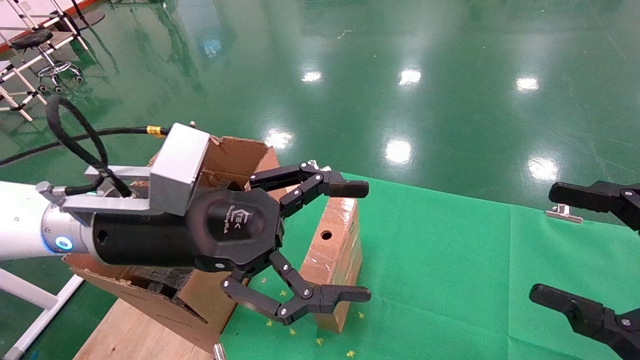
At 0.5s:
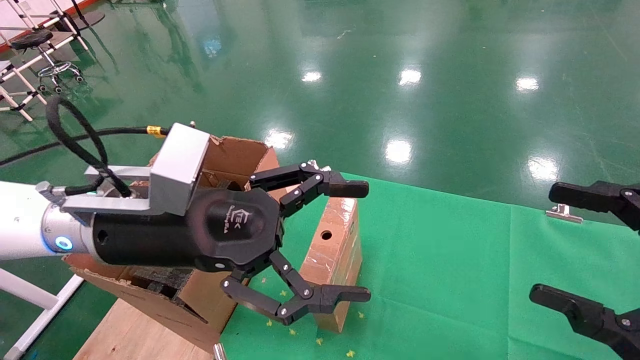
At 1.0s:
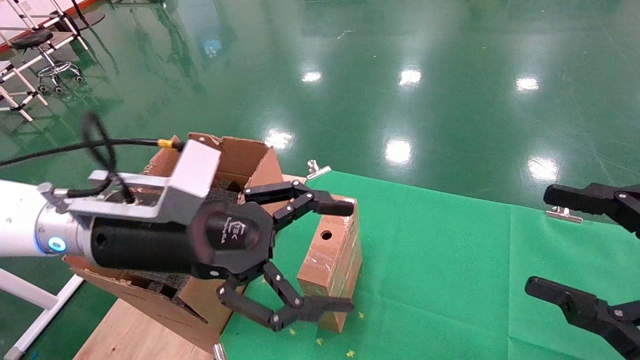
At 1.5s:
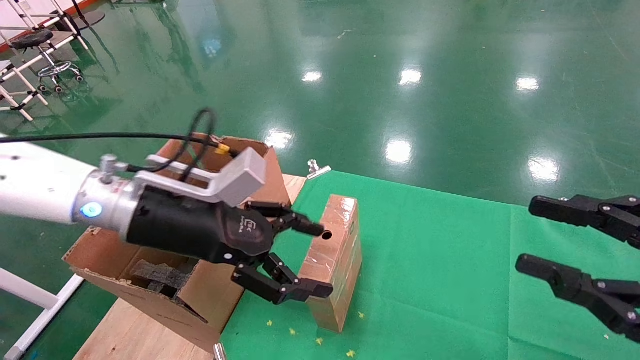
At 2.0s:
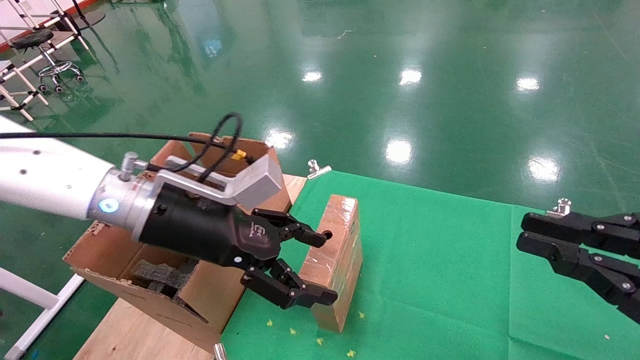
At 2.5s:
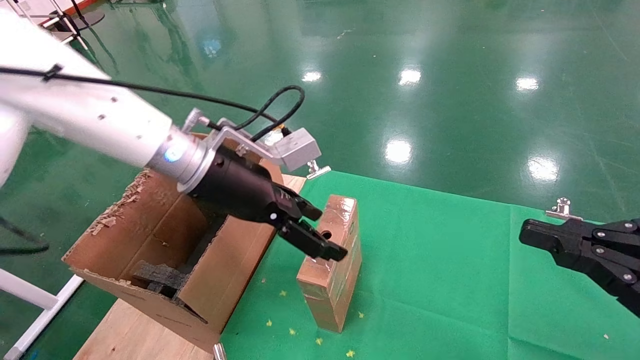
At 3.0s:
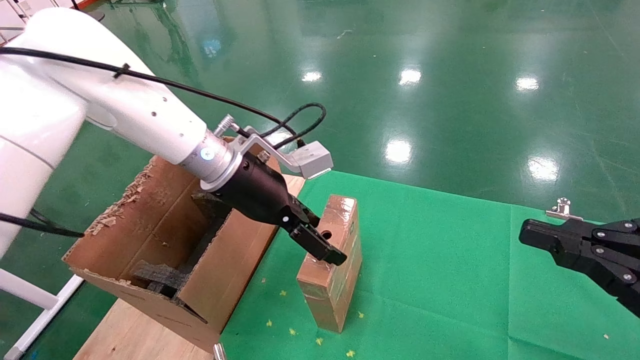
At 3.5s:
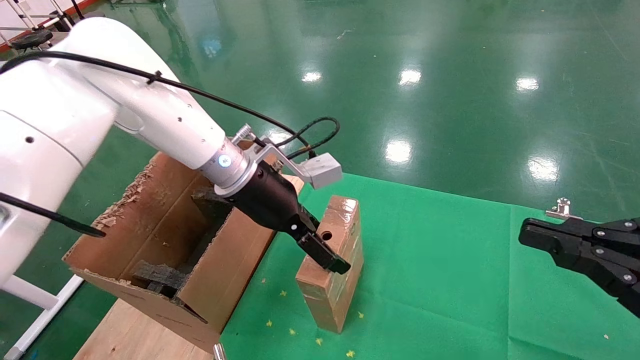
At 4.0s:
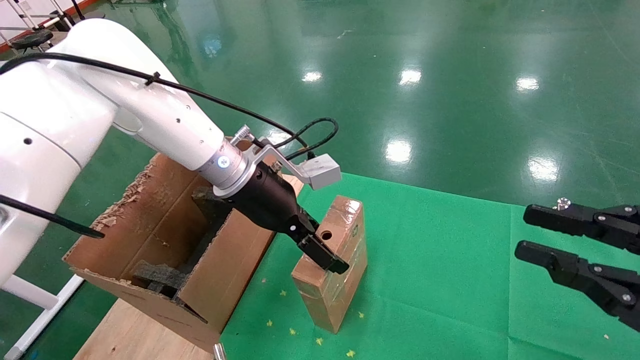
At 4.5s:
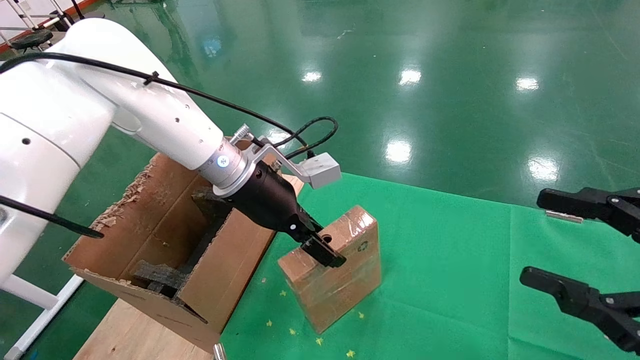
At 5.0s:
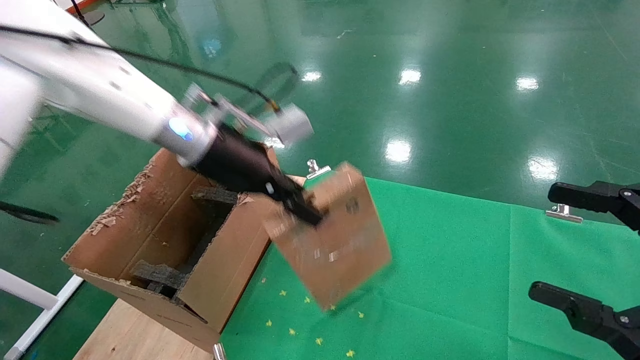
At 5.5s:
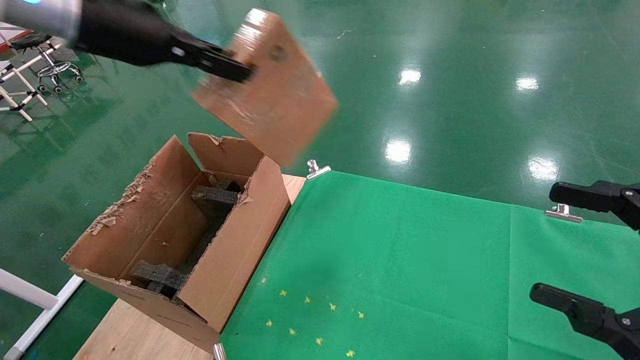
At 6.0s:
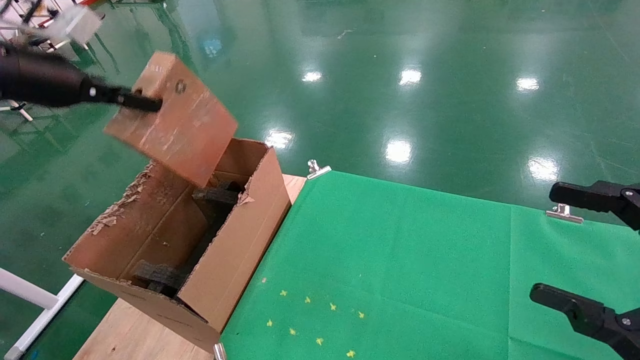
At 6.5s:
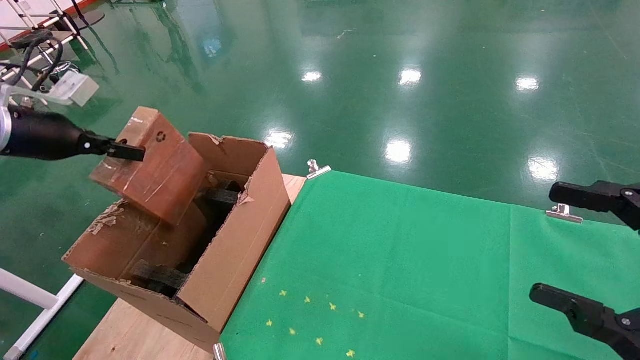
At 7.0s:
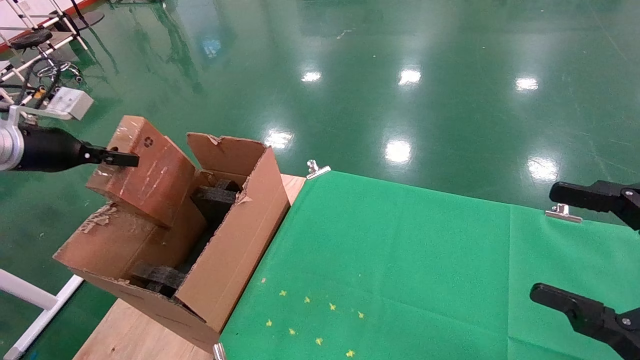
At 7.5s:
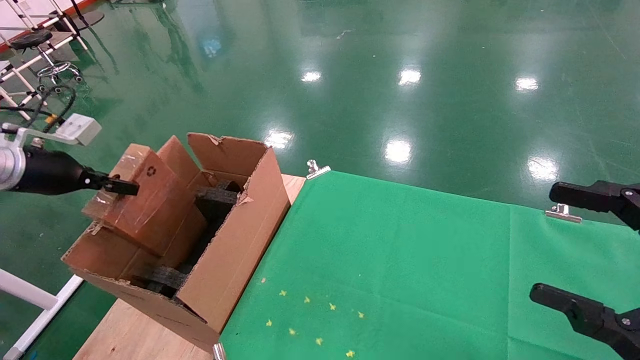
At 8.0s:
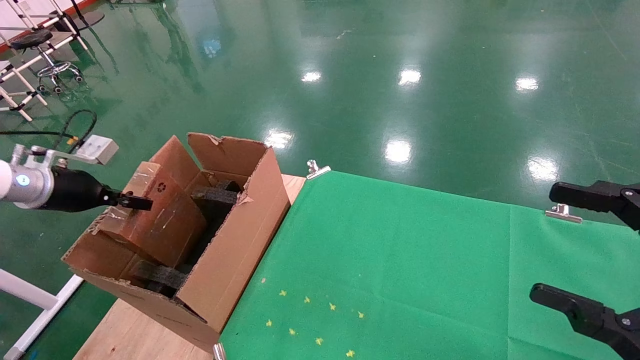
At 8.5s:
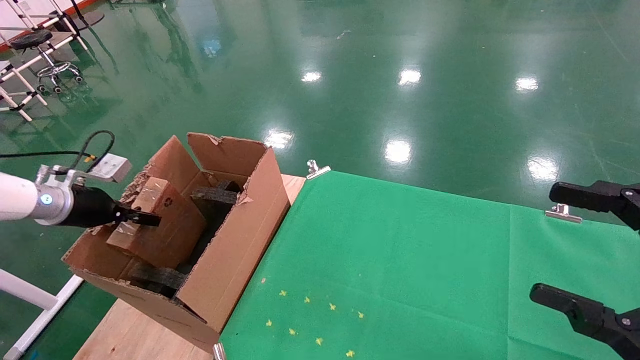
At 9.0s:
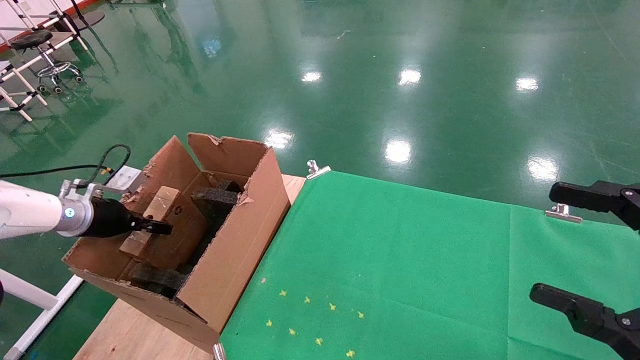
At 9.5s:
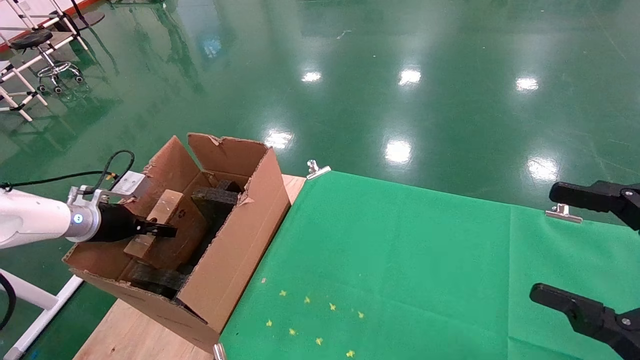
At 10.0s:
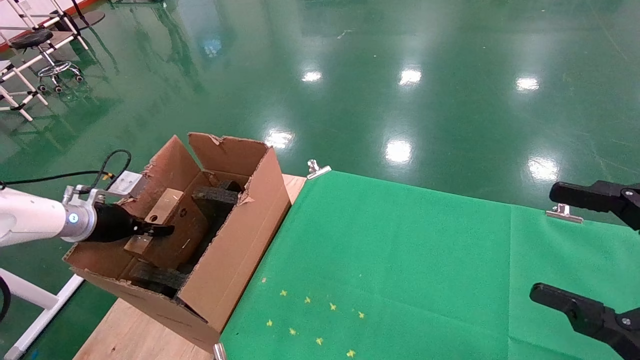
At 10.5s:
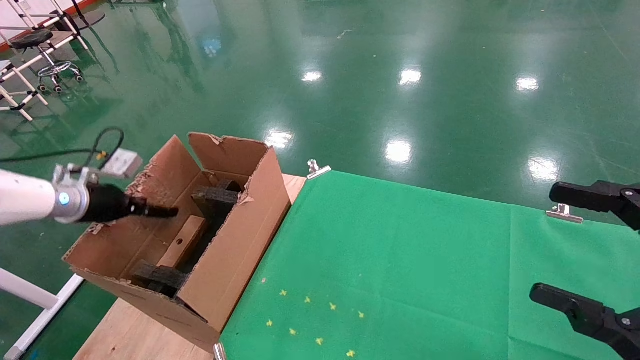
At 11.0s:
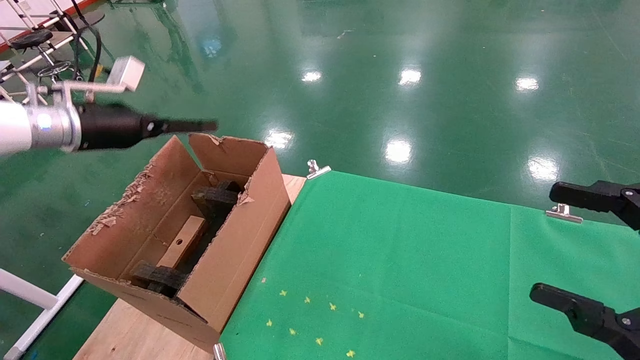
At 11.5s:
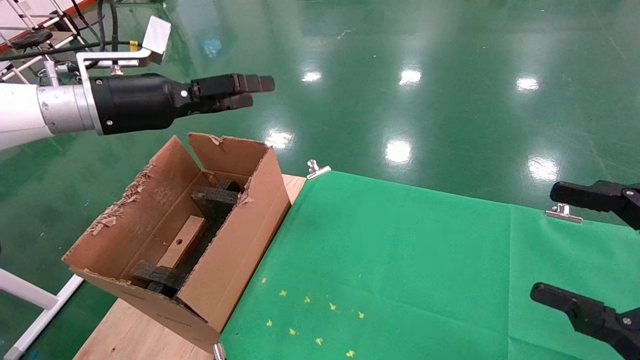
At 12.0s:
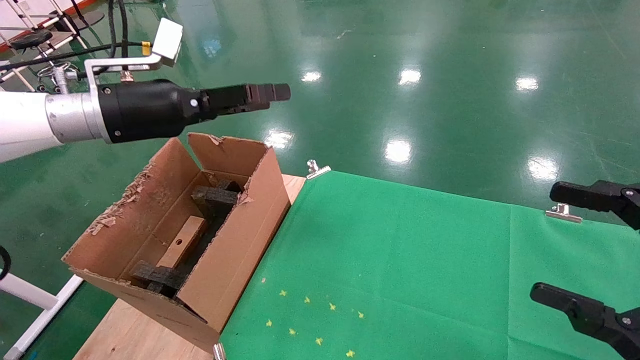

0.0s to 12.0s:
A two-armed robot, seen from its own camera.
Task of the whole recording: using a robotic arm to pick up a cardboard box and palace it the carton.
Step, 1.0s to 4.0s: Pick up the mouse and the power cord paper box.
Step, 4.5s to 11.0s: Place the mouse and the power cord paper box into the container.
0.0s to 2.0s: The right gripper closes up. Meanwhile the left gripper shifts roughly 5 cm forward.
2.0s to 4.0s: The left gripper is displaced forward by roughly 10 cm.
4.0s to 6.0s: The left gripper goes some 30 cm to the left and upward, and closes; the right gripper opens up.
6.0s to 8.0s: The left gripper travels downward and to the left by approximately 20 cm.
8.0s to 10.0s: The left gripper goes some 10 cm downward.
10.0s to 12.0s: The left gripper heads upward and to the right, covering roughly 25 cm, and opens.

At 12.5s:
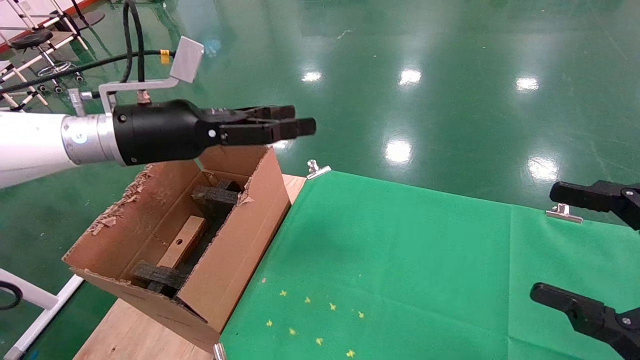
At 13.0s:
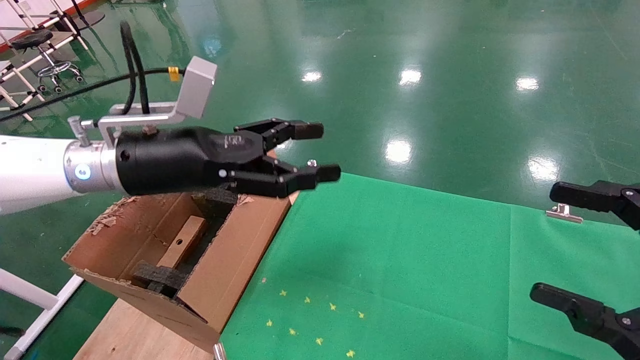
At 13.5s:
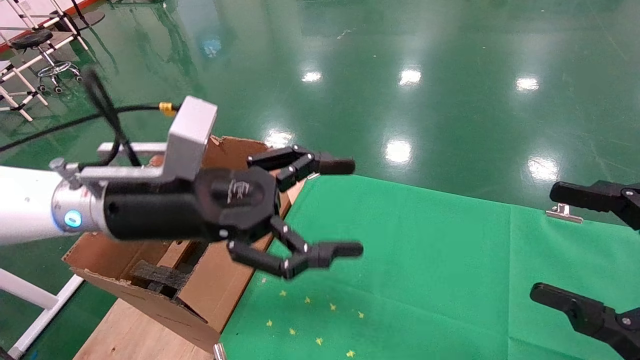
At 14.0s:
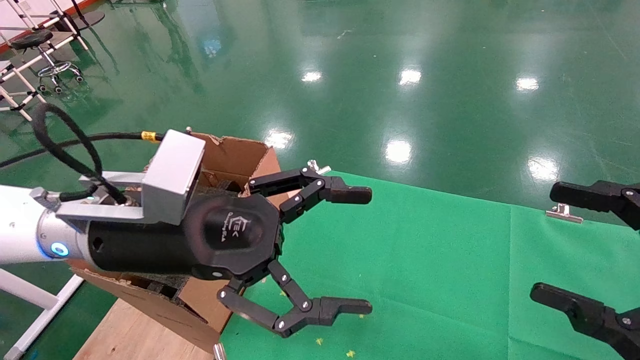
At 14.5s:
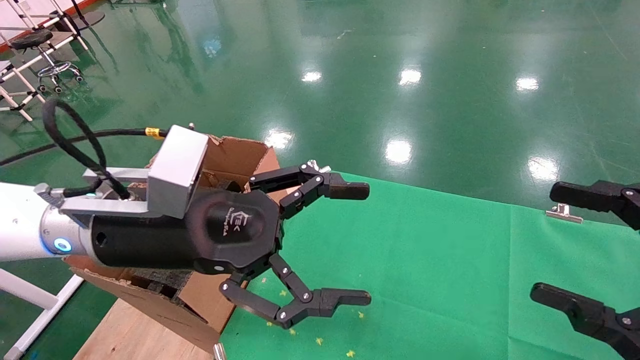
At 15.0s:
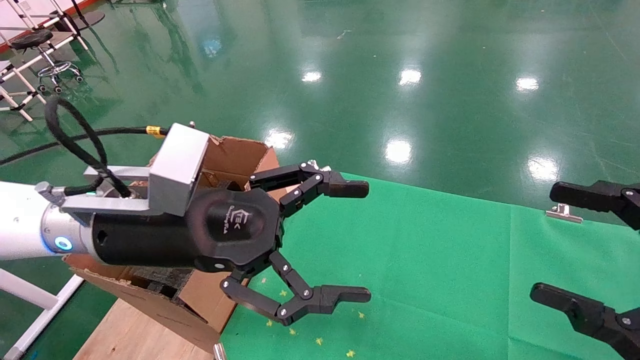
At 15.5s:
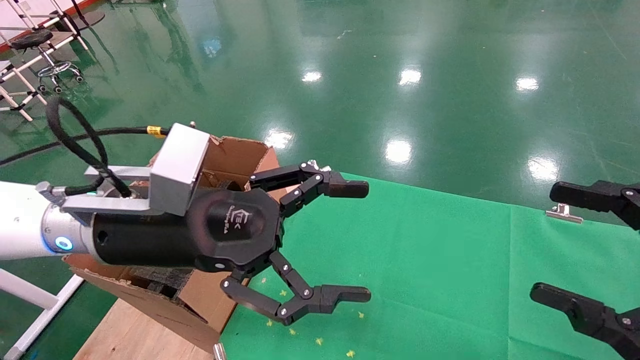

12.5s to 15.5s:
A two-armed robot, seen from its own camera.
Task of the whole recording: using a robotic arm to pick up a cardboard box and palace it the carton.
12.5s to 14.0s: The left gripper shifts some 15 cm backward, to the right and downward.
14.0s to 15.5s: The two grippers keep their place.

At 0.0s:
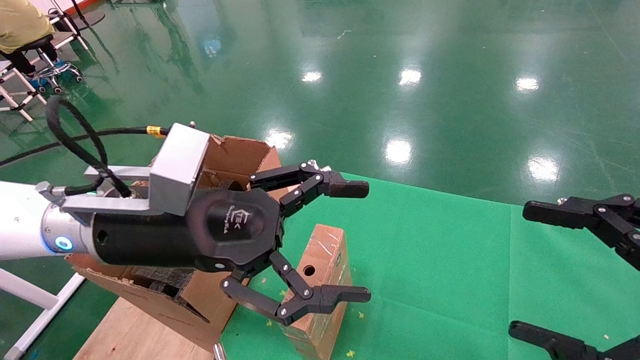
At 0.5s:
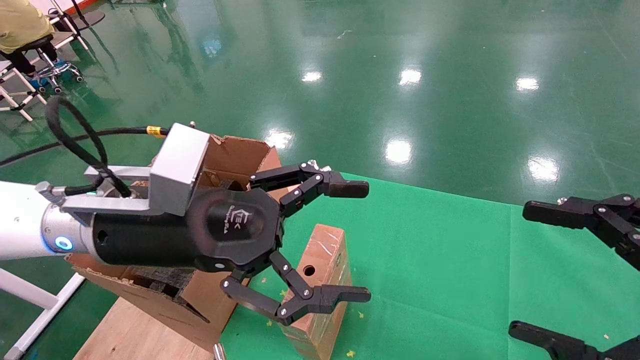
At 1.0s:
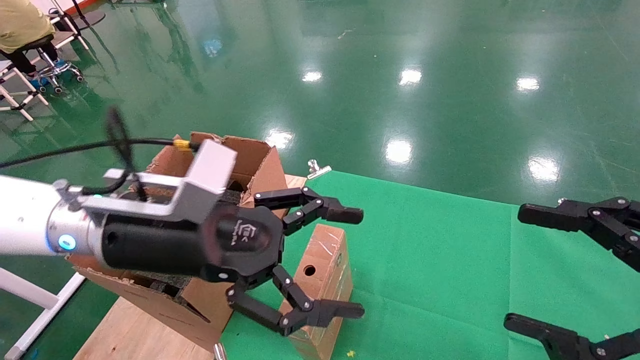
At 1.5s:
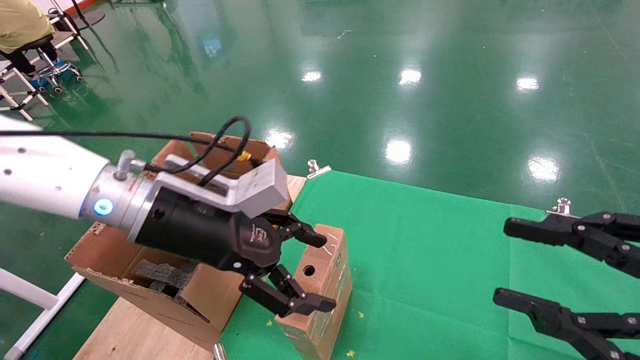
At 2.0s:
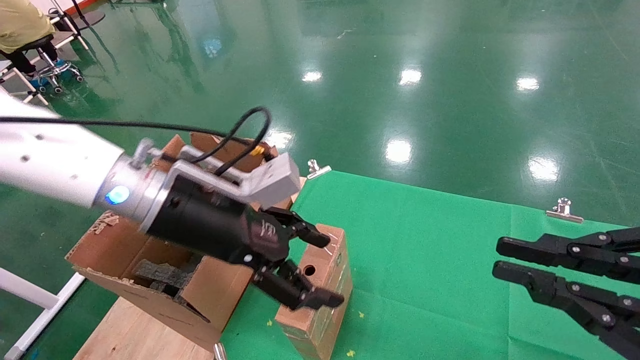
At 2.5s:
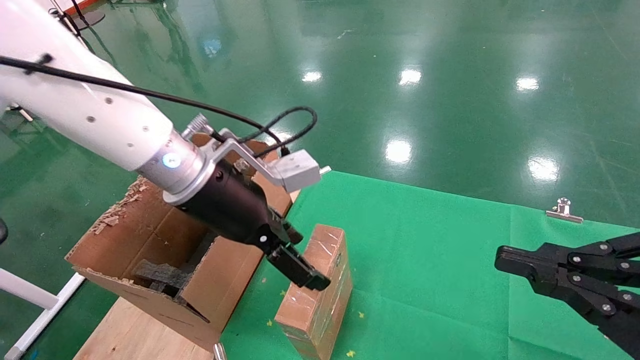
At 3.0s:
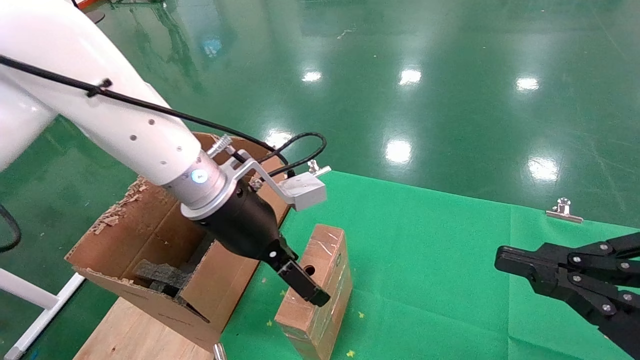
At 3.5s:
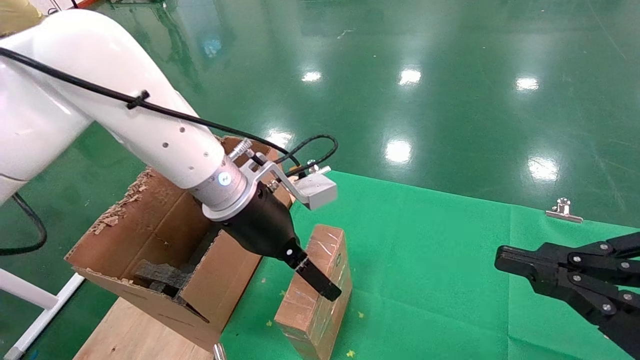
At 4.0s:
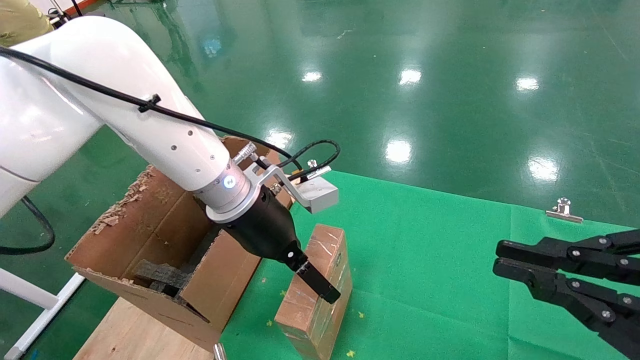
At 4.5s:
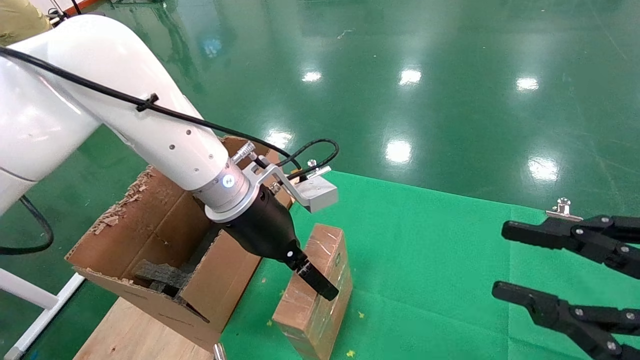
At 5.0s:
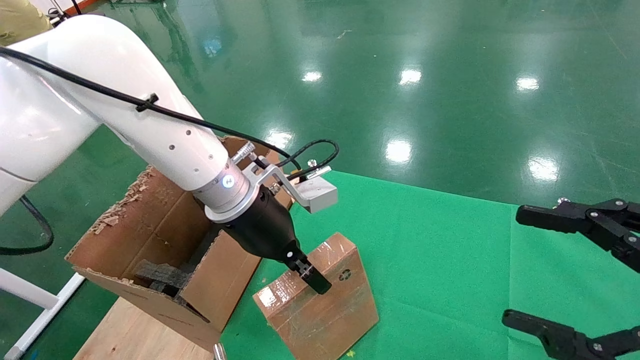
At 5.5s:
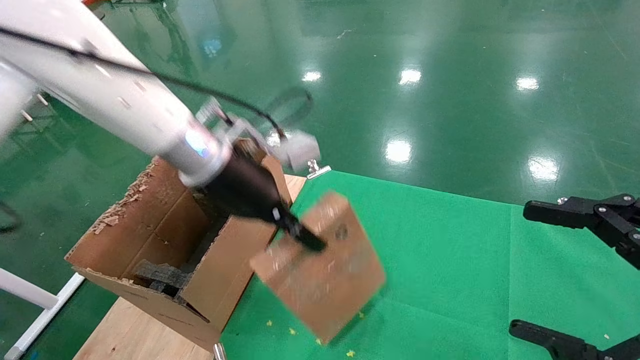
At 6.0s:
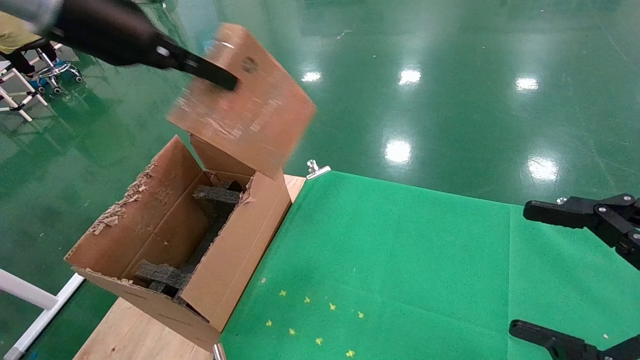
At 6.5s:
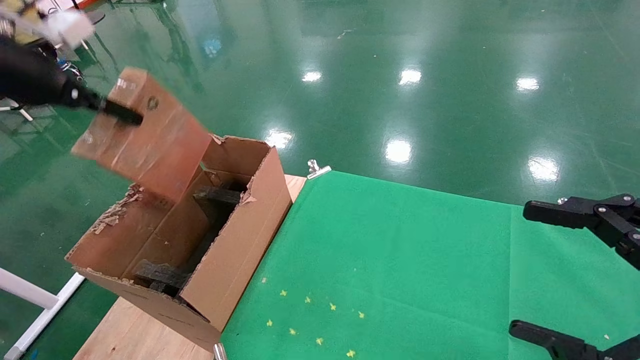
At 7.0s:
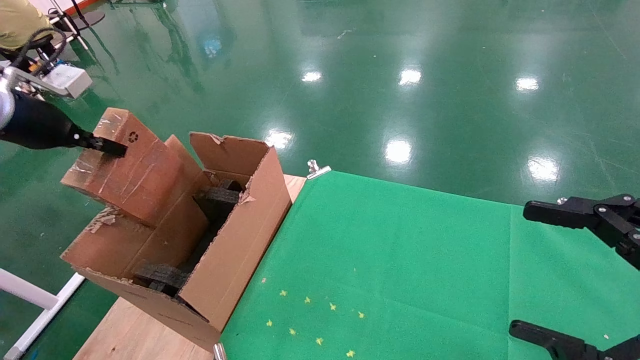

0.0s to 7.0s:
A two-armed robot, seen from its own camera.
Task of the whole recording: using a robotic arm to pick up a cardboard box and palace it the carton.
Step, 1.5s to 5.0s: Pick up the mouse and the power cord paper box.
0.0s to 2.0s: The left gripper moves forward, approximately 5 cm; the right gripper closes up.
2.0s to 3.5s: The left gripper moves forward, some 5 cm.
3.5s to 5.0s: The left gripper closes its fingers, while the right gripper opens its fingers.
5.0s to 7.0s: The left gripper travels to the left by roughly 35 cm.
